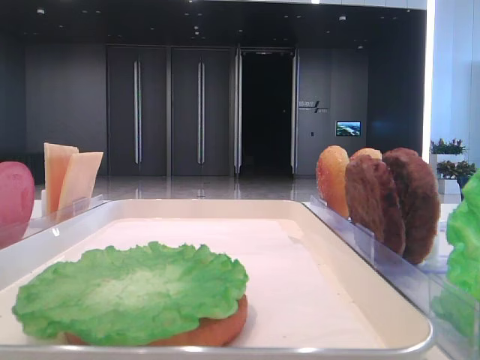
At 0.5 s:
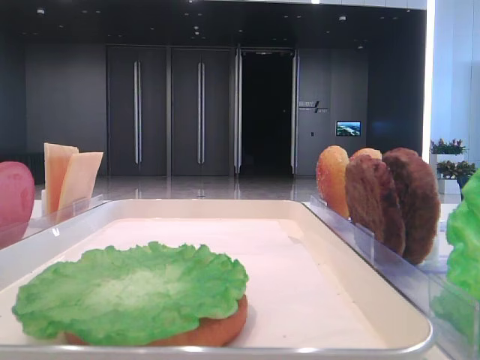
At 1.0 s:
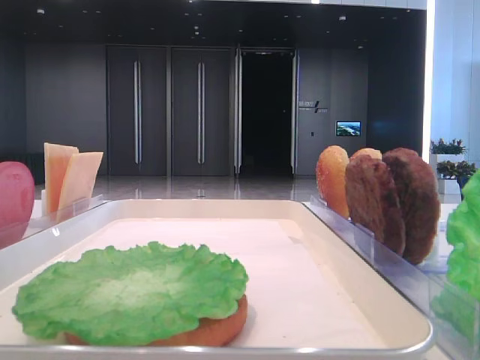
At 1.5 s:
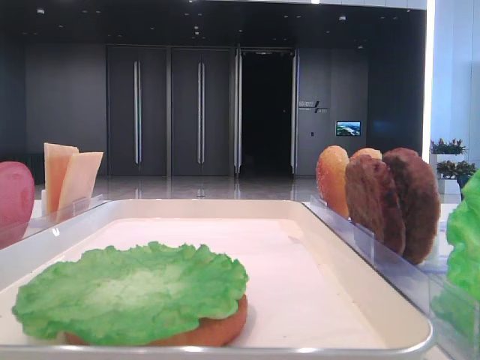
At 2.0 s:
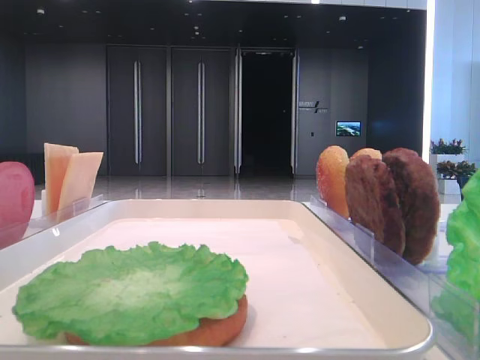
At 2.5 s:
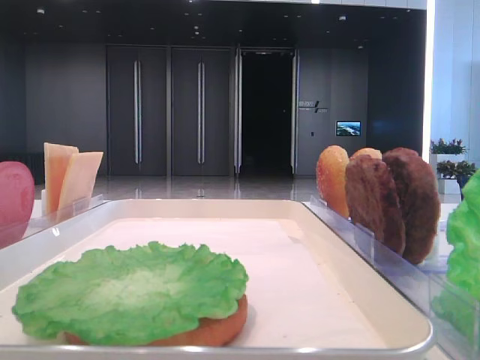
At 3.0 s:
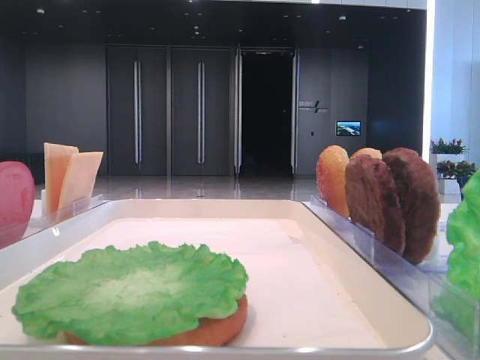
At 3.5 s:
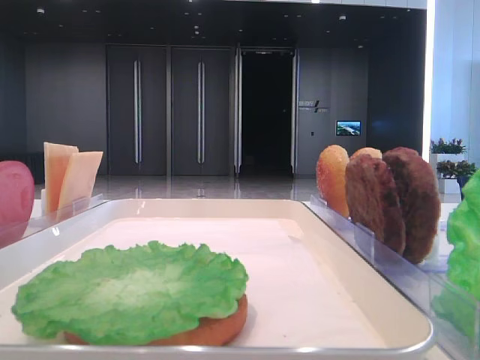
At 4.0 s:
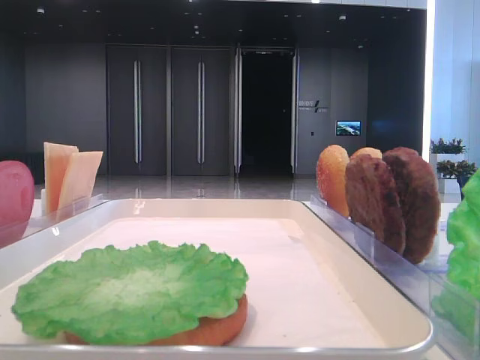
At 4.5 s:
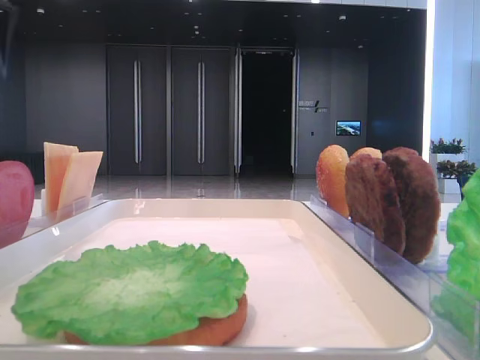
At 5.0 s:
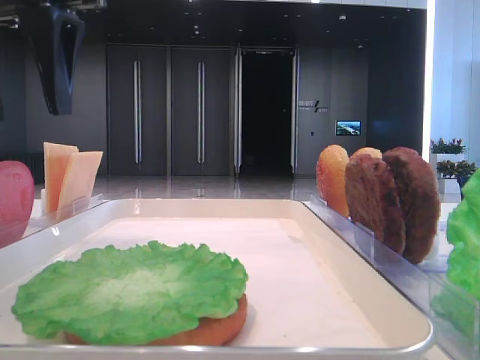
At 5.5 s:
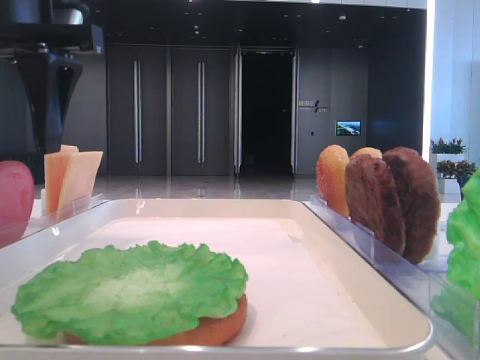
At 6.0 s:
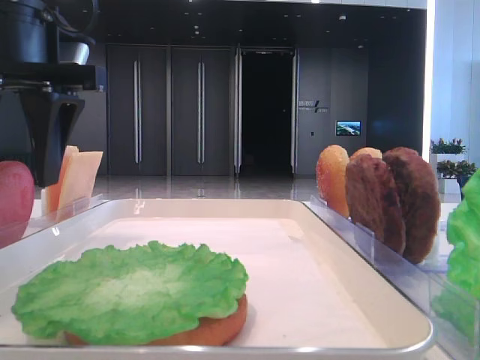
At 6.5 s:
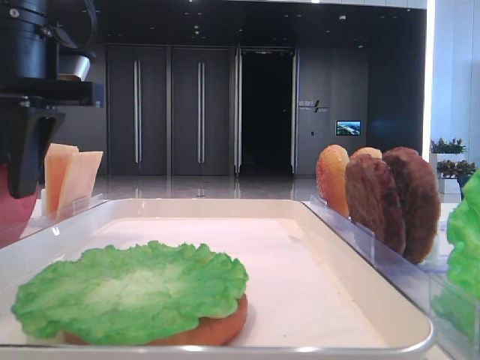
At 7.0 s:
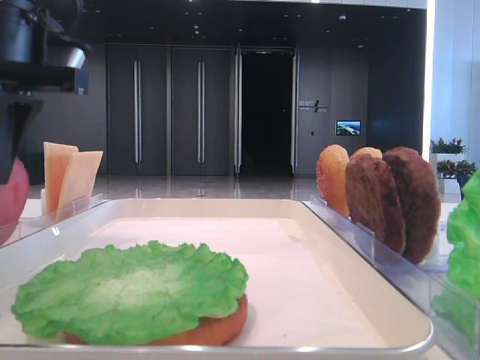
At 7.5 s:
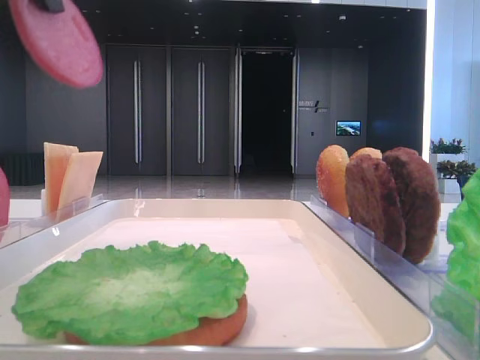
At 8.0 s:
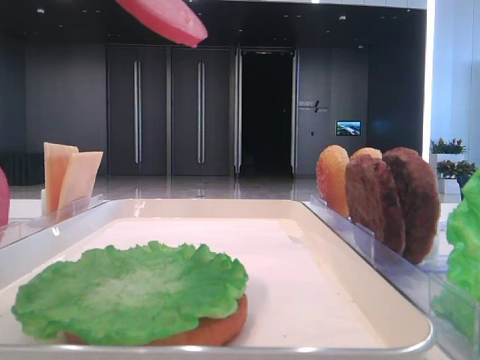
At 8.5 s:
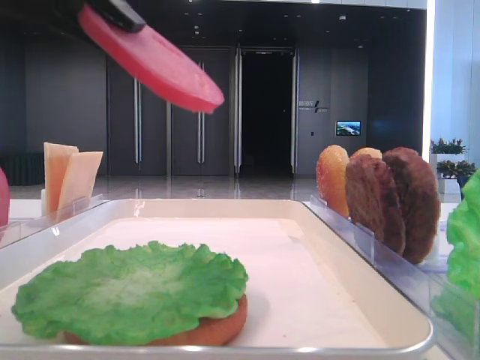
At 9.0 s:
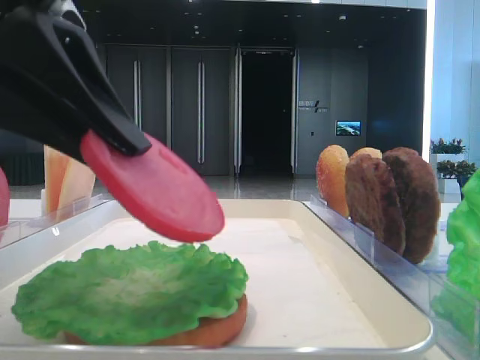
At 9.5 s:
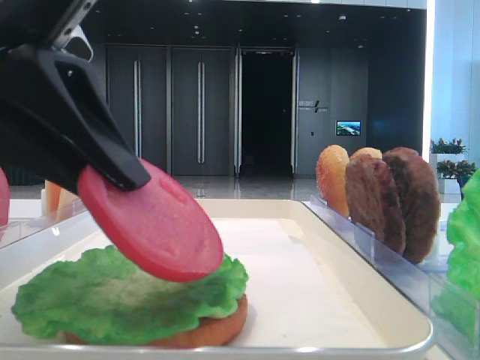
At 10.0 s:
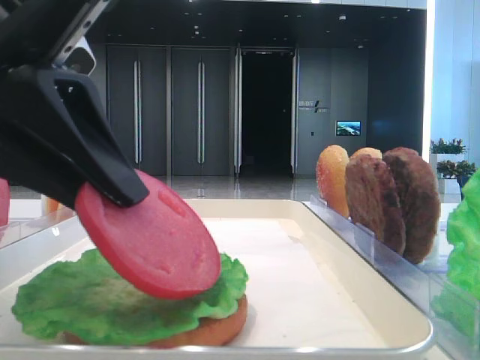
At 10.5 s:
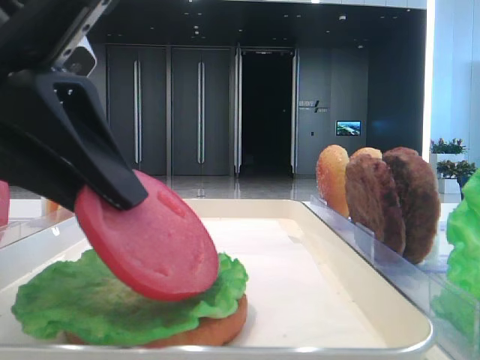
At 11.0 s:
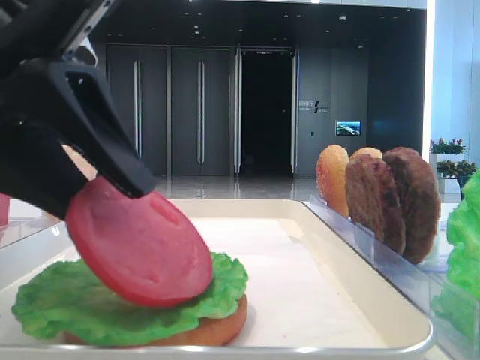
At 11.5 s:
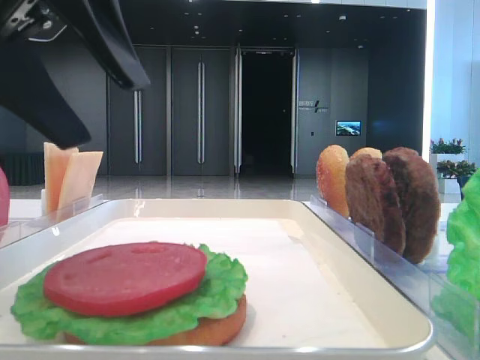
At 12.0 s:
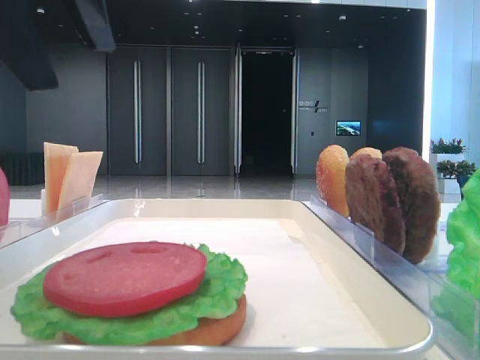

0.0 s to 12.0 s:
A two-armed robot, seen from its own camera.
Step, 0.0 to 6.5 s: Pick up the tomato slice with the left hand.
Step, 7.0 to 11.0 s: Place the tomato slice on the lettuce leaf with the left hand.
4.0 to 6.0 s: The left gripper is displaced to the right and downward by about 15 cm.
6.0 to 8.0 s: The left gripper goes some 15 cm backward and upward, and closes.
8.0 to 10.0 s: The left gripper heads downward, covering some 10 cm.
10.0 to 12.0 s: The left gripper moves upward, roughly 10 cm, and opens its fingers.

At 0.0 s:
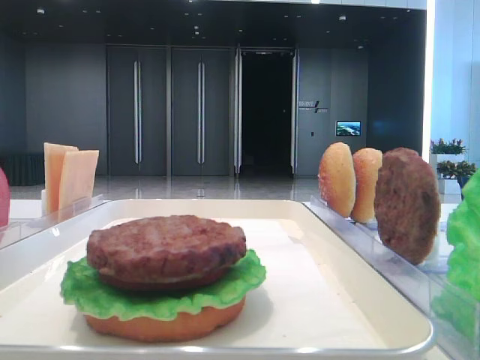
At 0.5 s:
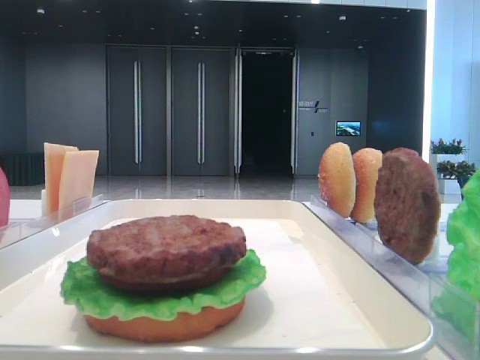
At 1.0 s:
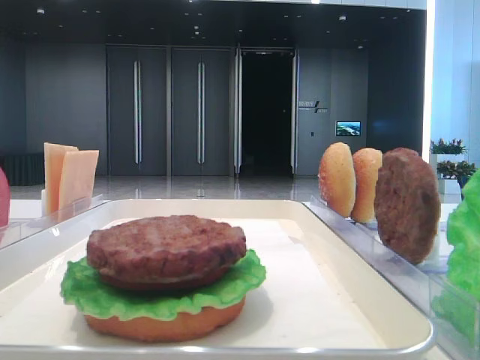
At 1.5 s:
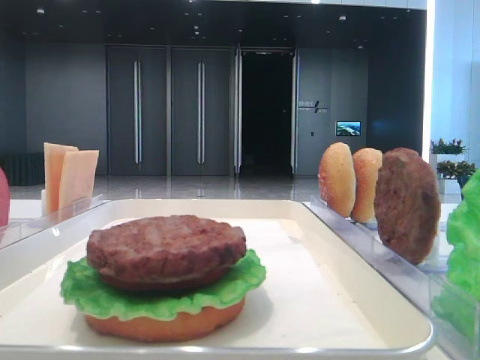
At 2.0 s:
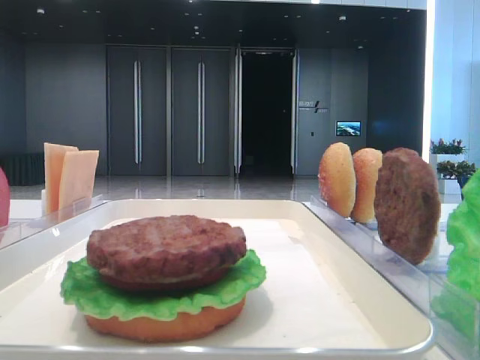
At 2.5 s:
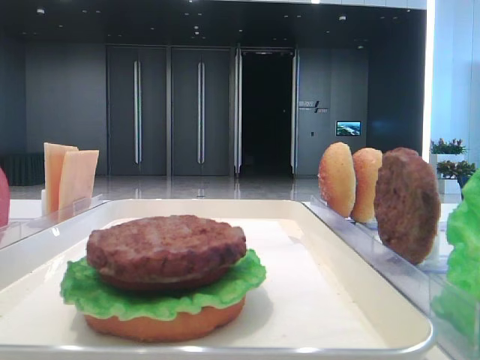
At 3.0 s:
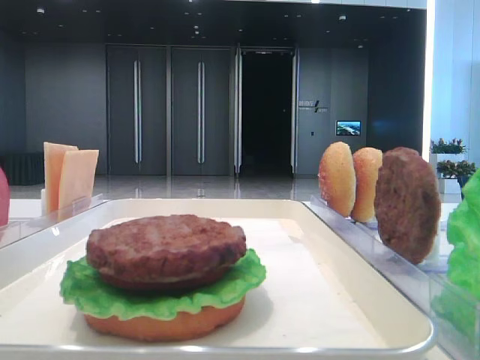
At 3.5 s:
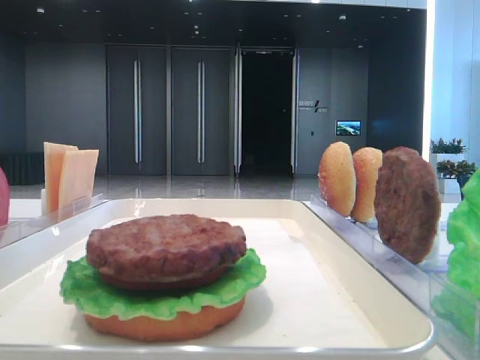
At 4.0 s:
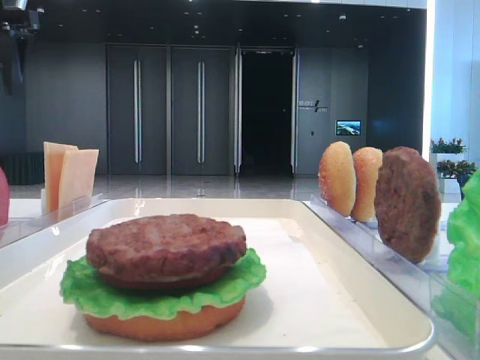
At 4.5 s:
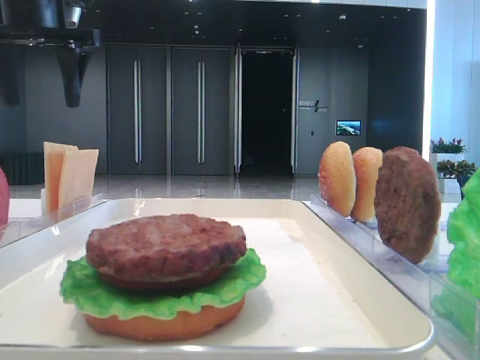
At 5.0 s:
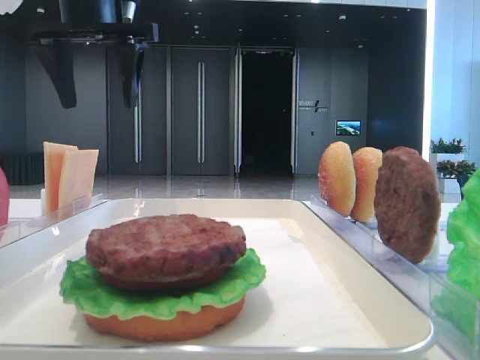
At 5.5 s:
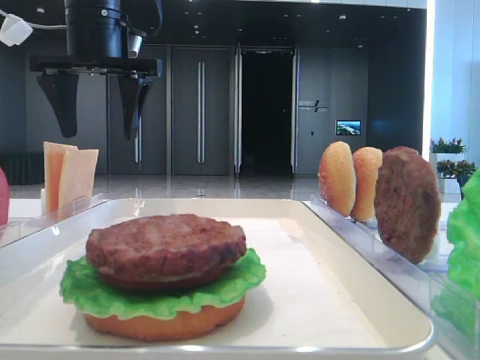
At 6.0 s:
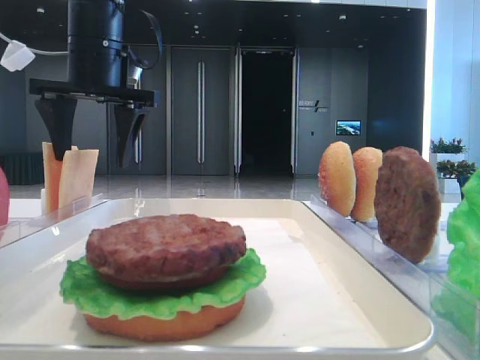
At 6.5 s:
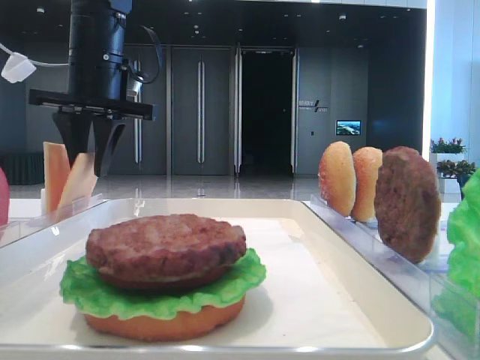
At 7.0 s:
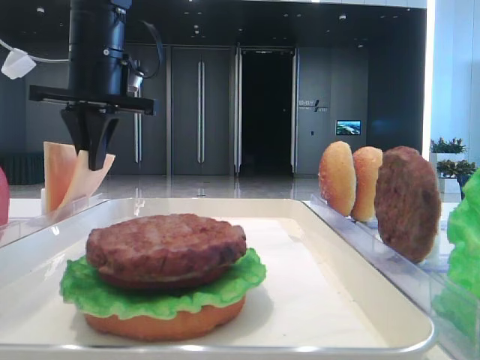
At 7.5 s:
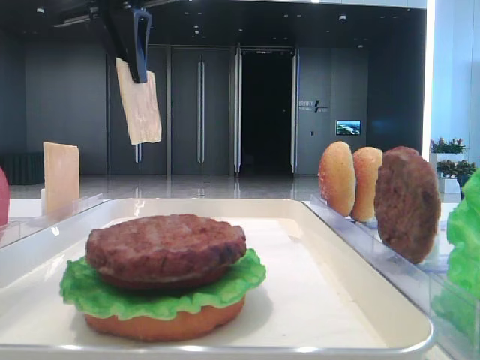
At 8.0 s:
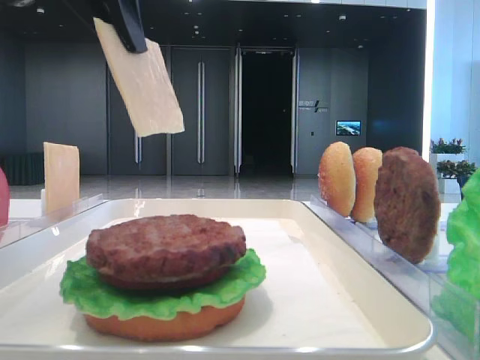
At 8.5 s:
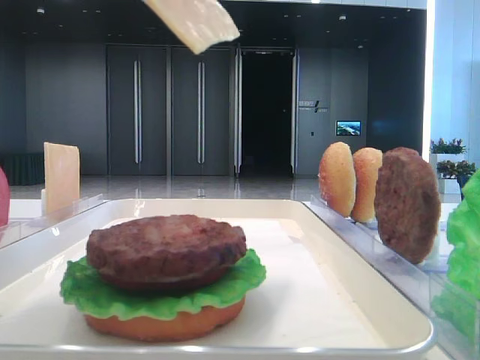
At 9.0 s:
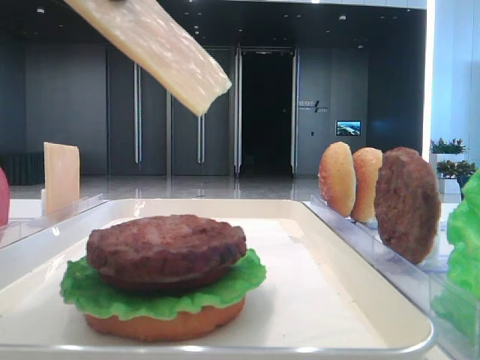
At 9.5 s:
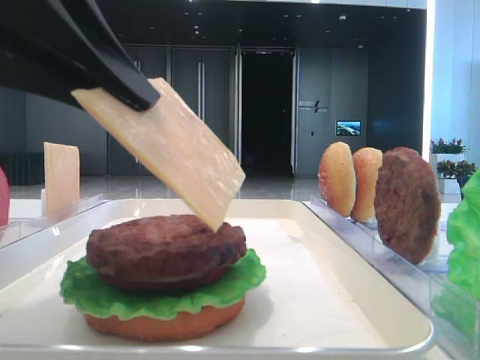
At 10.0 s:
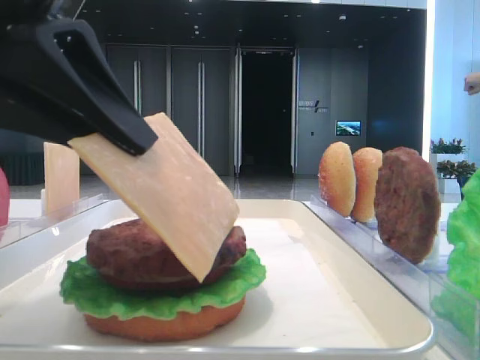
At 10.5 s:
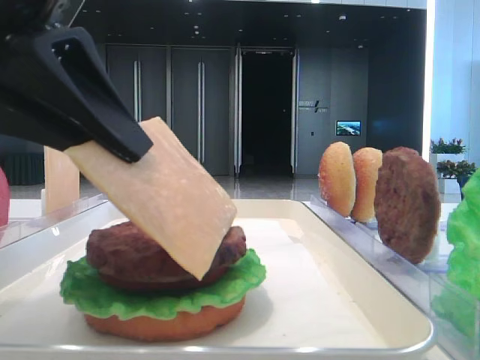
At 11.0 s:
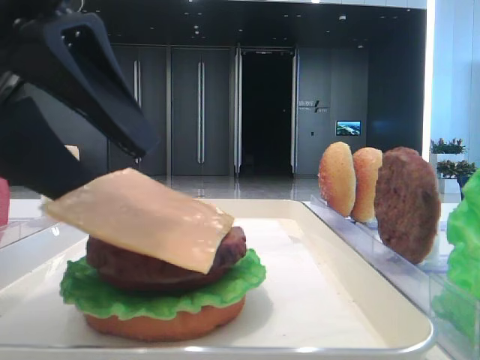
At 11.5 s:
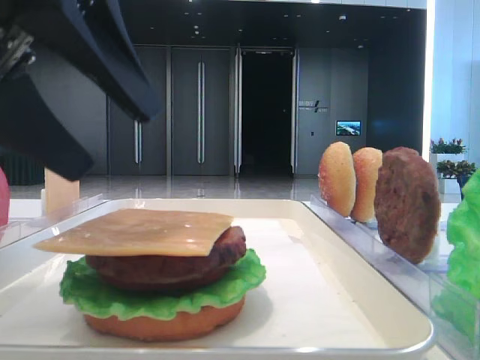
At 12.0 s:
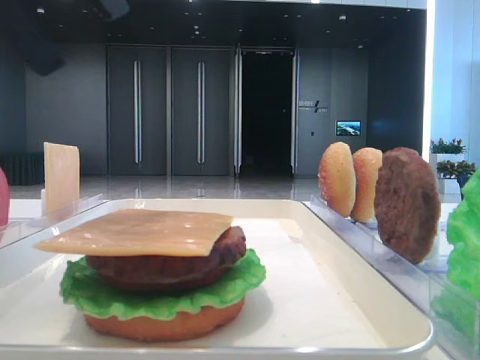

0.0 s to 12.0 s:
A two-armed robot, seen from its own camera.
Step, 0.0 to 6.5 s: Pick up the cheese slice with the left hand.
Step, 7.0 to 11.0 s: Place the cheese slice on the patty with the left hand.
2.0 to 4.0 s: The left gripper travels forward by about 40 cm.
4.0 to 6.0 s: The left gripper is displaced to the right and downward by about 15 cm.
6.0 to 8.0 s: The left gripper is displaced backward and upward by roughly 15 cm, and closes up.
8.0 to 10.0 s: The left gripper is displaced downward and backward by some 15 cm.
10.0 to 12.0 s: The left gripper heads upward, covering roughly 10 cm, and opens up.

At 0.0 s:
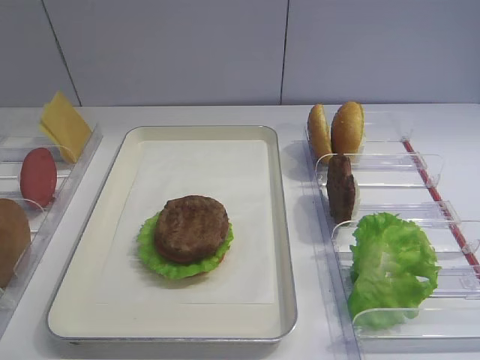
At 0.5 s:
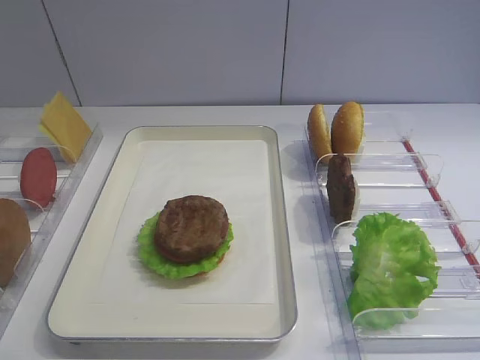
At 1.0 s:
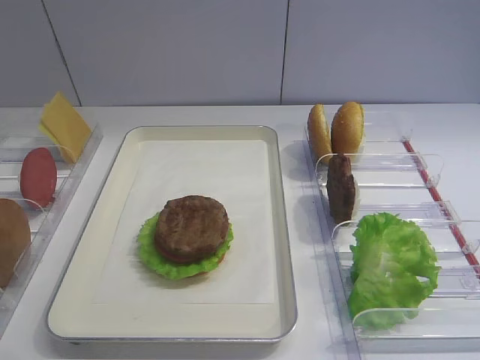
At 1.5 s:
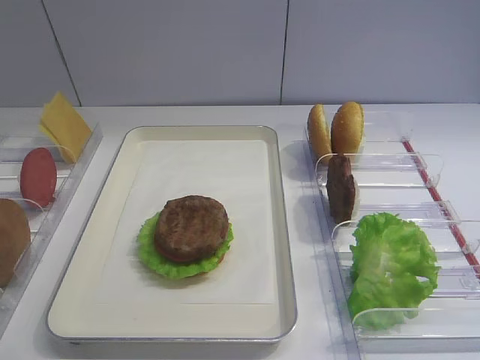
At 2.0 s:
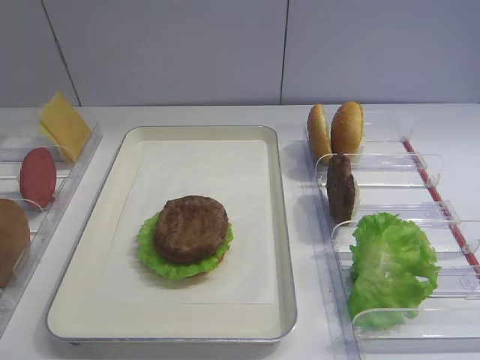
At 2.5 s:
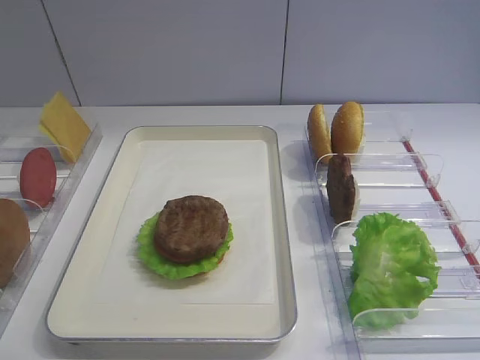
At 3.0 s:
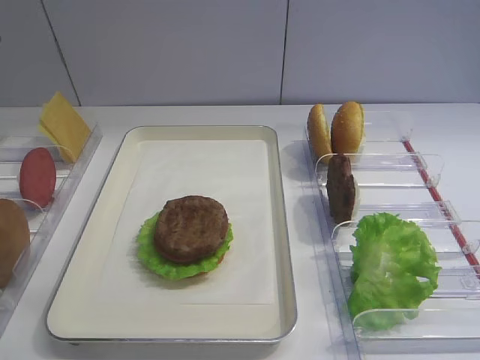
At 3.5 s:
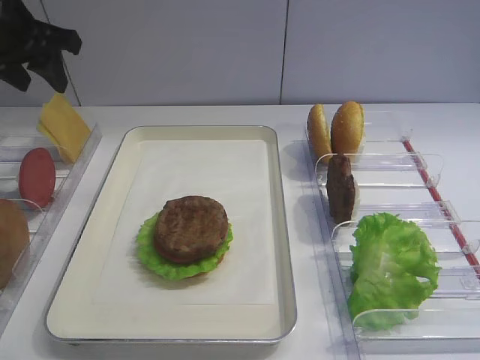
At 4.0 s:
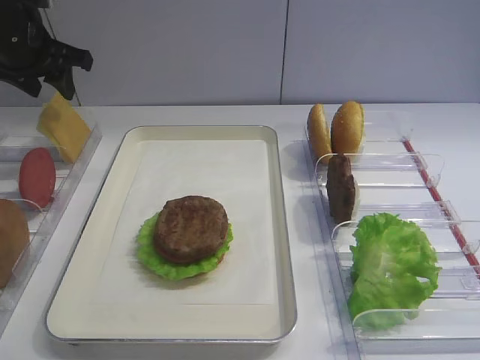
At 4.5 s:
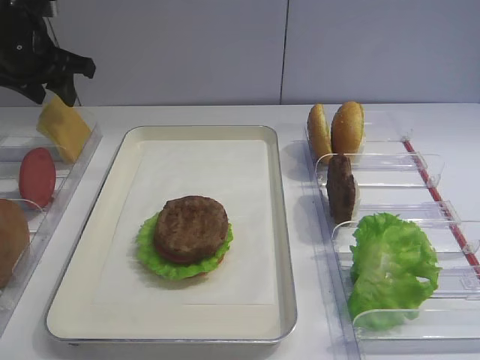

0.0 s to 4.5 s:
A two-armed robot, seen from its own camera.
2.0 to 4.5 s: The left gripper shifts approximately 40 cm forward.
